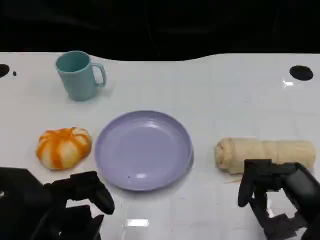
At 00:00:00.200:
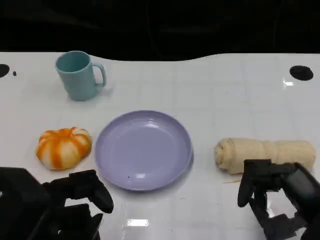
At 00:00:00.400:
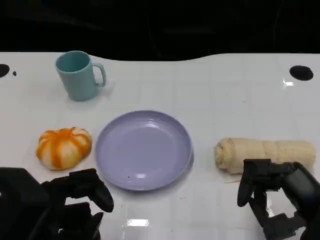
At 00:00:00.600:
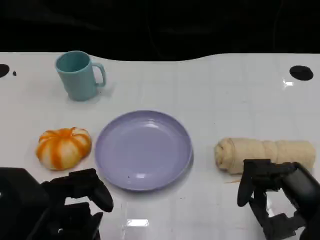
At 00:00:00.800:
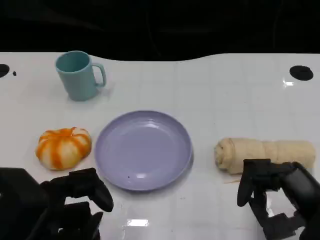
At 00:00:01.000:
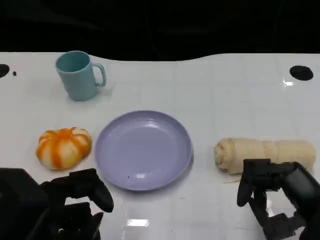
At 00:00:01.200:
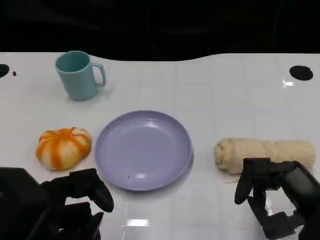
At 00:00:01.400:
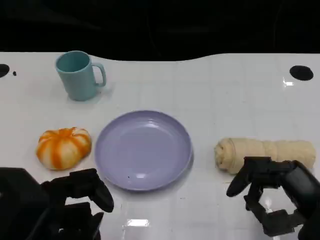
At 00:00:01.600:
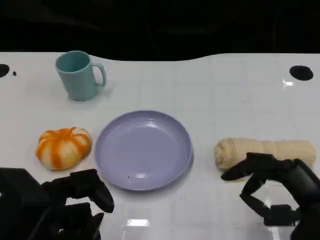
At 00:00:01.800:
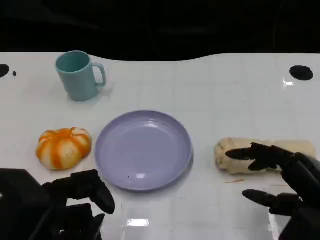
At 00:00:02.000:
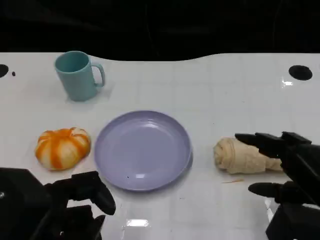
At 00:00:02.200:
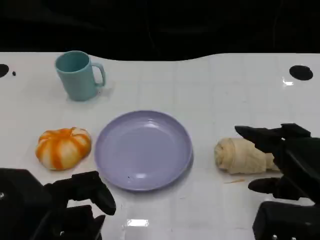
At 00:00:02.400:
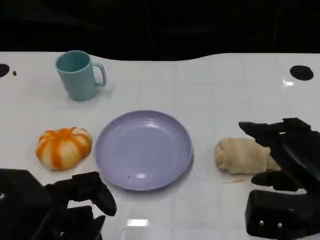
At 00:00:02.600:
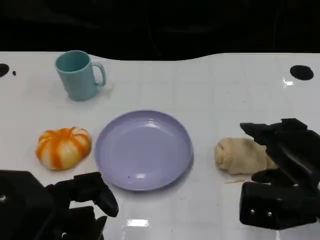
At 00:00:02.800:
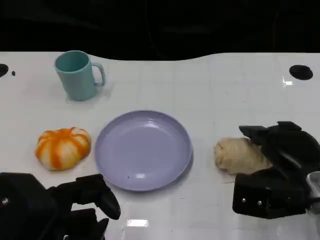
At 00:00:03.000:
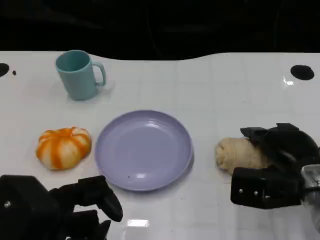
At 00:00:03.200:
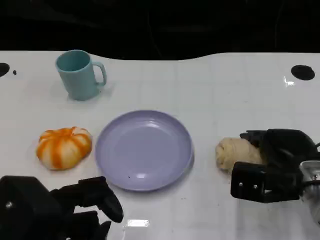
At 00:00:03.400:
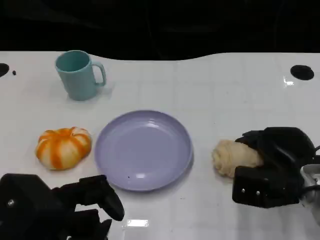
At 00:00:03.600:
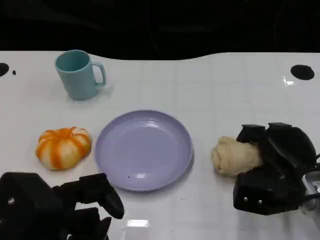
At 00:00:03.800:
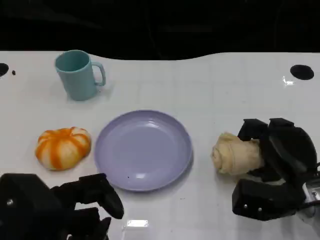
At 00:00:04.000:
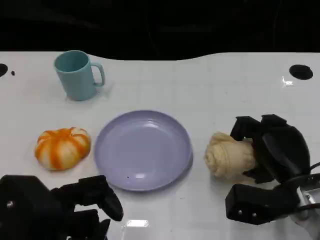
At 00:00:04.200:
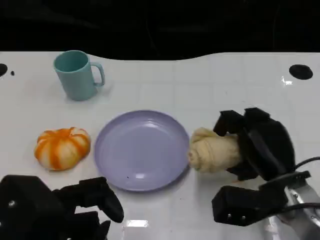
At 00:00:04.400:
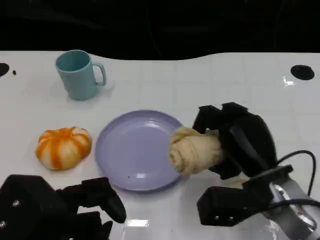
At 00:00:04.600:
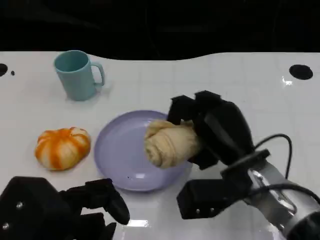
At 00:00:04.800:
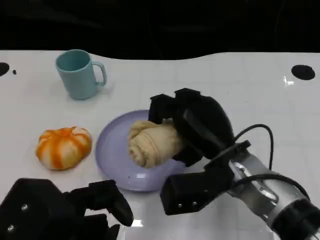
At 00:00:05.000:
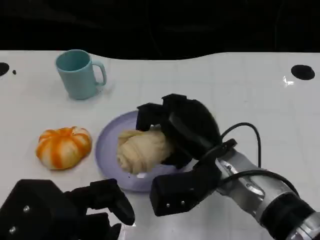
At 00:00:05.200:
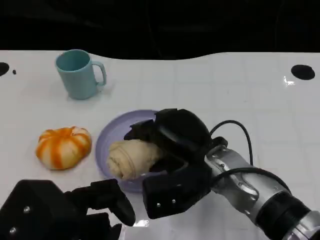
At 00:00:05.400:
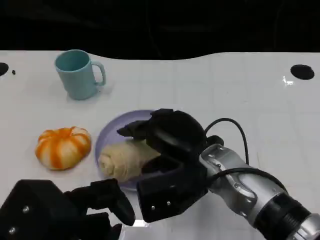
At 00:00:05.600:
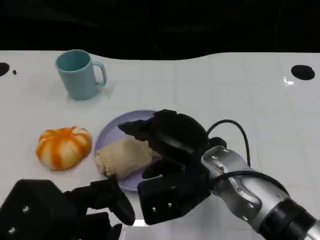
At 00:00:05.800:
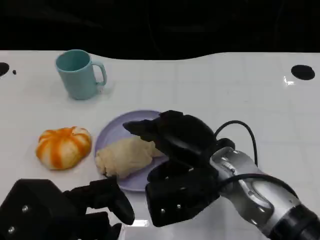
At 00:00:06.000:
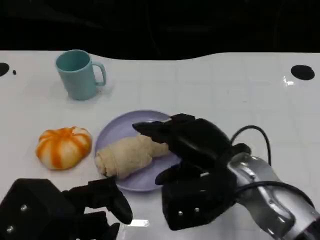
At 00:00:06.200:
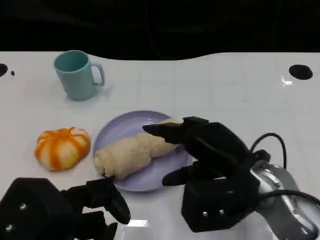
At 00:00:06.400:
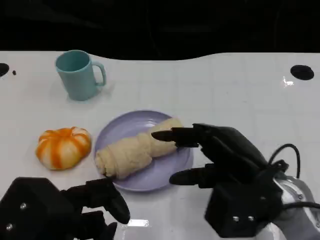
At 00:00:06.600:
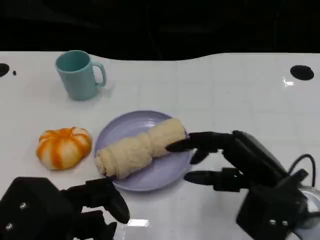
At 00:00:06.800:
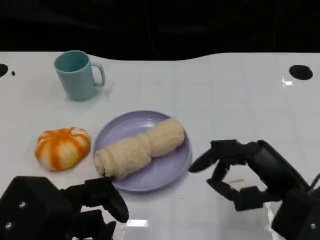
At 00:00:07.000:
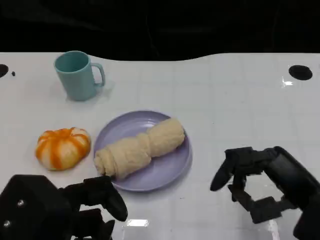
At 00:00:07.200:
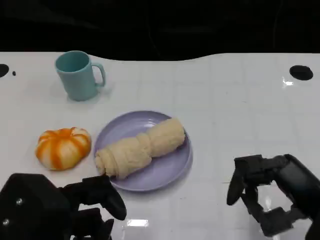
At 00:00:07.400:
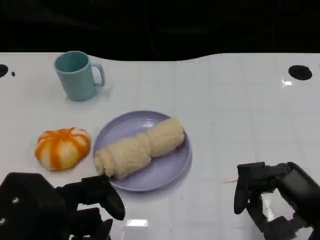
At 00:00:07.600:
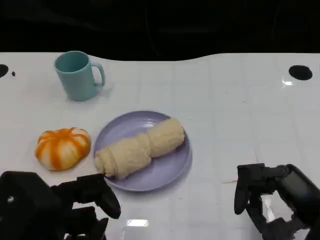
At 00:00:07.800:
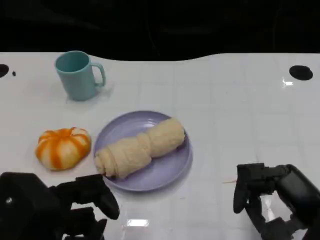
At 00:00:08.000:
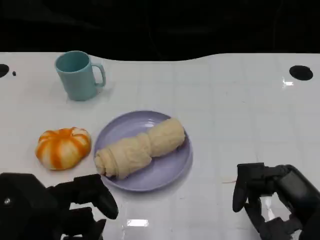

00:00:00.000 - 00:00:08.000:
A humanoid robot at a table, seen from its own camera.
Task of the whole recording: Grasp the towel on the left side of the plate with the left hand and place it into the plate.
00:00:00.000 - 00:00:01.600: The hands move only a little.
00:00:01.600 - 00:00:03.200: The right hand heads forward, covering roughly 10 cm.
00:00:03.200 - 00:00:04.800: The right hand travels to the left by some 10 cm.
00:00:04.800 - 00:00:06.400: The right hand moves to the right, approximately 5 cm.
00:00:06.400 - 00:00:08.000: The right hand travels to the right and backward by some 10 cm.

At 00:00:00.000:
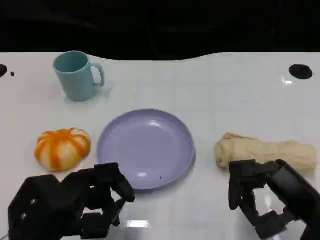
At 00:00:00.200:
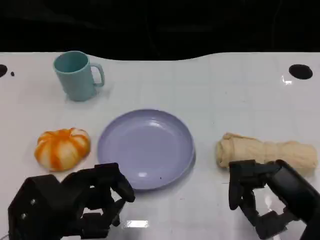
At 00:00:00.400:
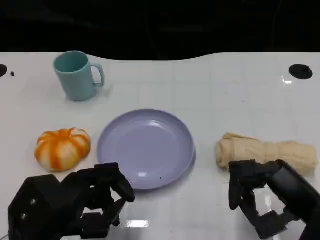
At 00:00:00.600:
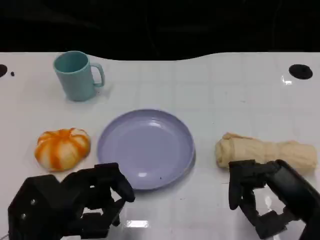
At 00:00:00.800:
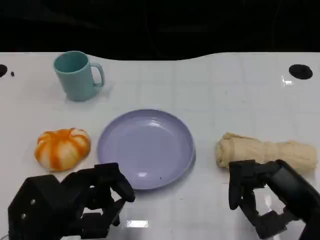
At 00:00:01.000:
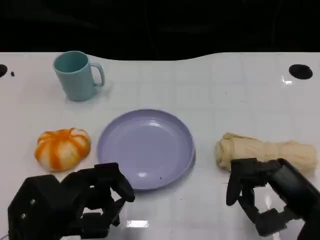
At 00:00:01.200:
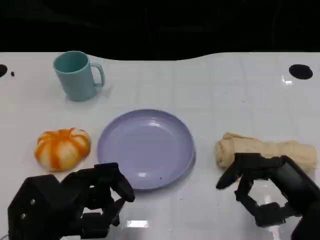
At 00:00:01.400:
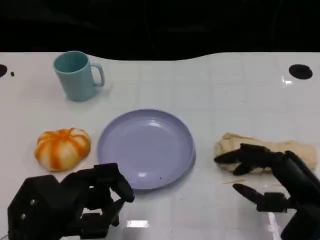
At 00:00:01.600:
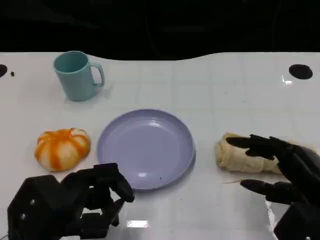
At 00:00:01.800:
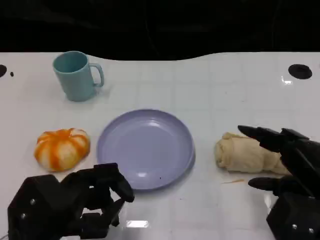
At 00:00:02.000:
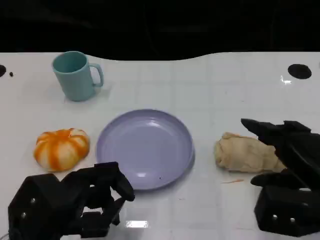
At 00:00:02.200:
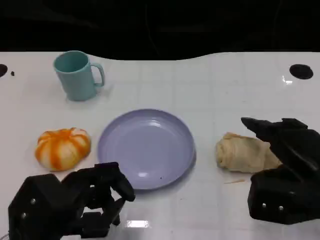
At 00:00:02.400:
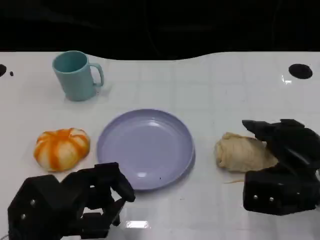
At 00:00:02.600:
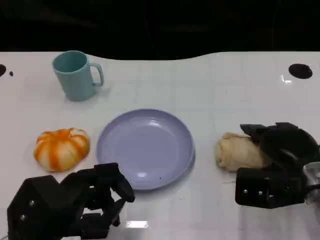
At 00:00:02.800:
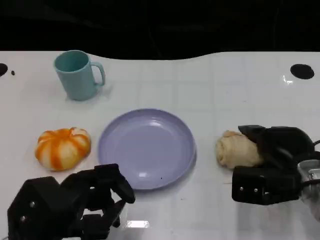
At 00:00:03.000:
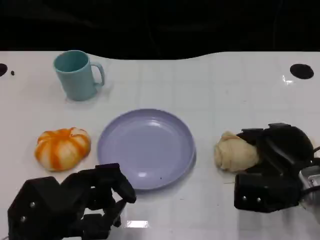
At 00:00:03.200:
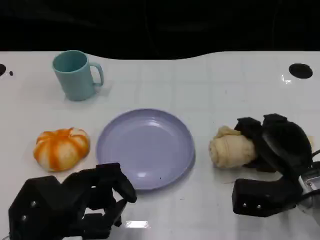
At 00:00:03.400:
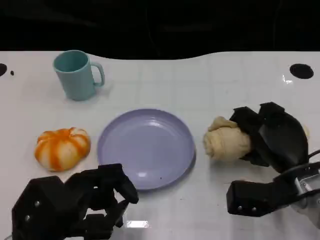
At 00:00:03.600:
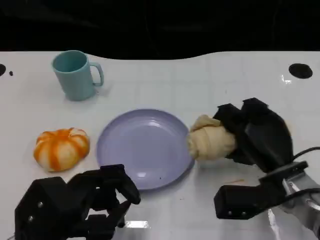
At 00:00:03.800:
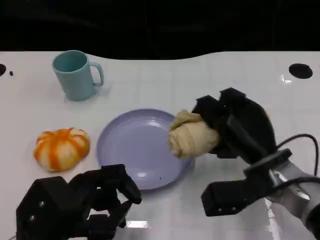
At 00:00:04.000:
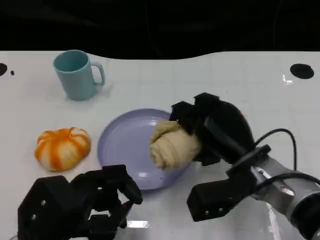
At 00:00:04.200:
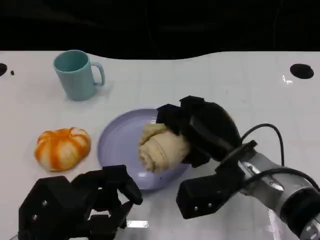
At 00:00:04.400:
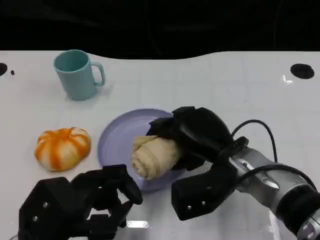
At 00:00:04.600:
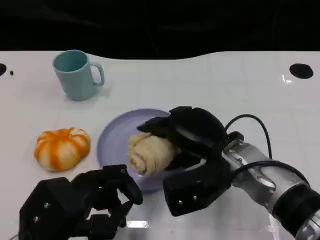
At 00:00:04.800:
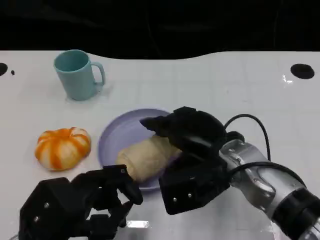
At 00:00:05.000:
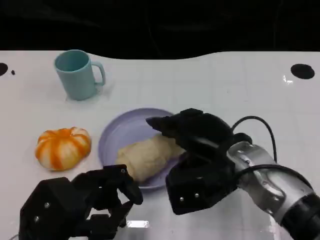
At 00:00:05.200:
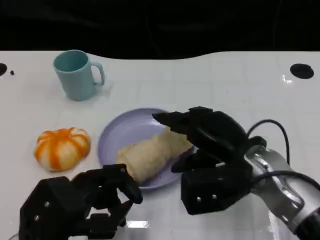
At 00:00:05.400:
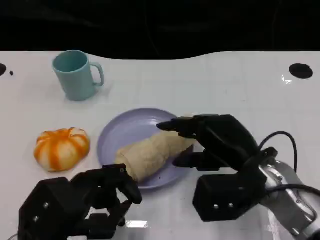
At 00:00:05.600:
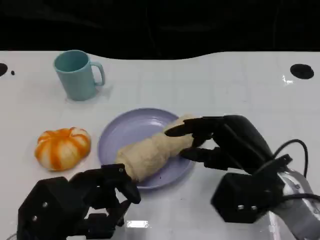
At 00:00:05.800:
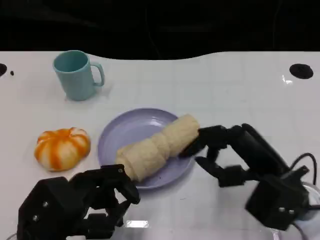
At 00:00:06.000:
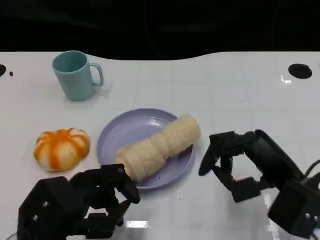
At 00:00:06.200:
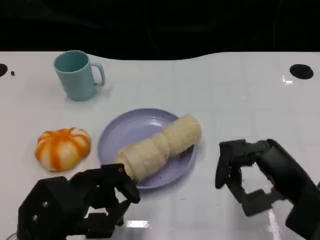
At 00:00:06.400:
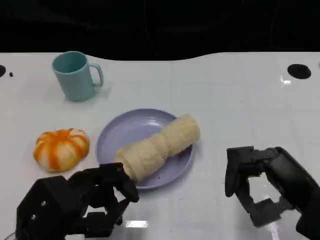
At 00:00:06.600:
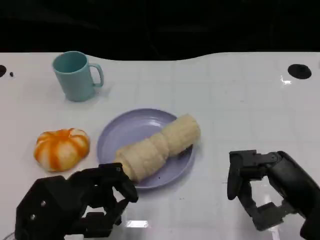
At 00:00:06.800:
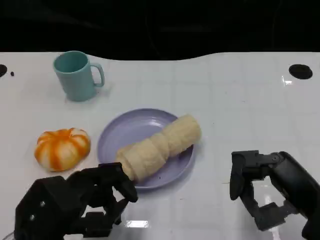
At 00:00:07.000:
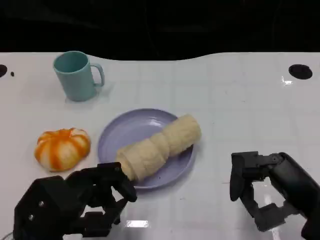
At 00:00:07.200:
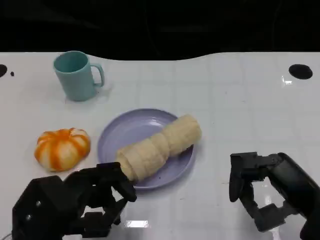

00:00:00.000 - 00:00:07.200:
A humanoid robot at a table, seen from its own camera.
Task of the whole recording: Grasp the towel on the left side of the plate with the left hand and place it into the plate.
00:00:00.000 - 00:00:01.400: The hands move only a little.
00:00:01.400 - 00:00:02.800: The right hand is displaced forward by about 10 cm.
00:00:02.800 - 00:00:04.400: The right hand is displaced to the left by some 10 cm.
00:00:04.400 - 00:00:05.800: The right hand shifts about 10 cm to the right and backward.
00:00:05.800 - 00:00:07.200: The right hand shifts by approximately 5 cm.
